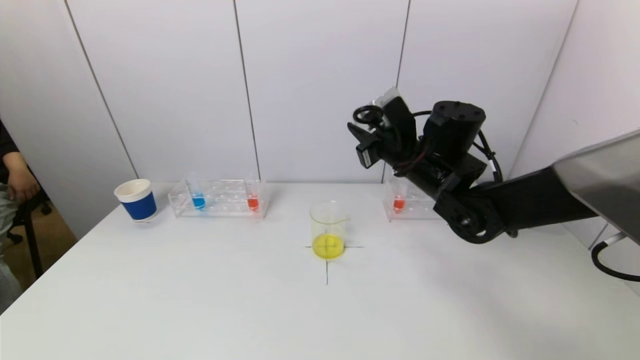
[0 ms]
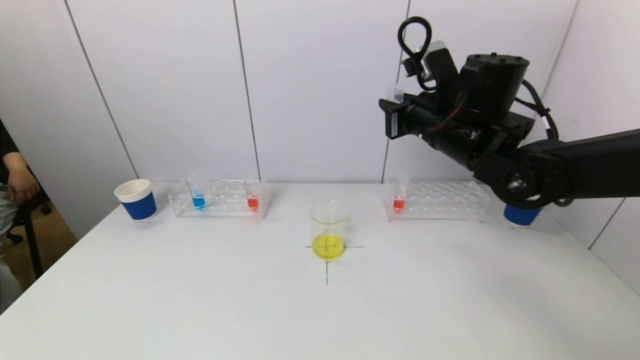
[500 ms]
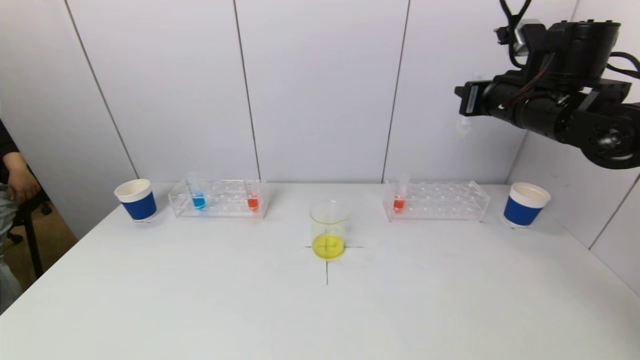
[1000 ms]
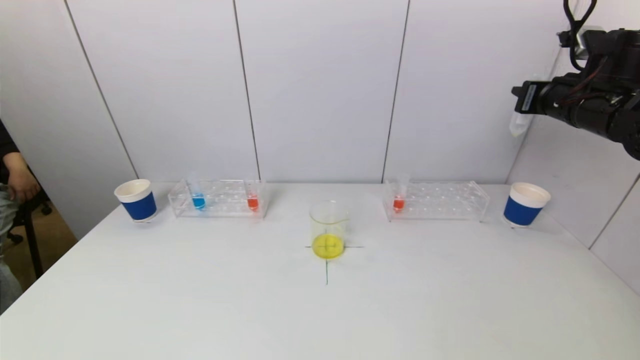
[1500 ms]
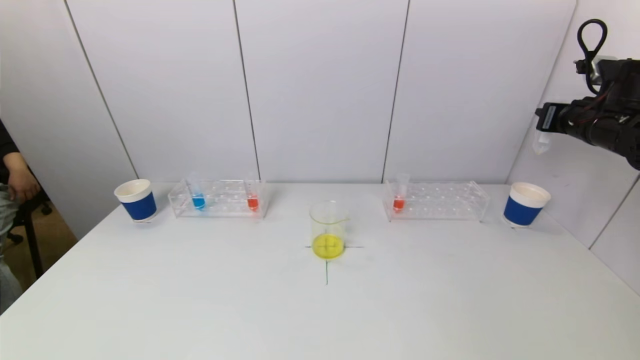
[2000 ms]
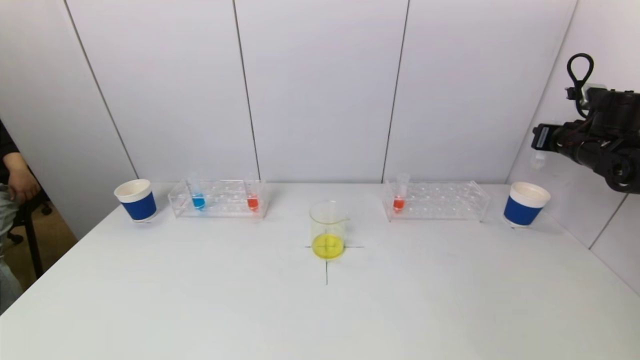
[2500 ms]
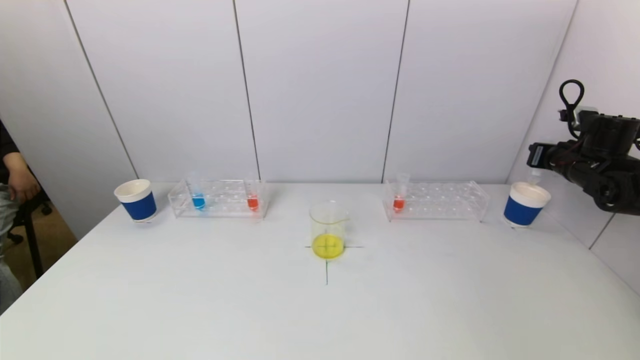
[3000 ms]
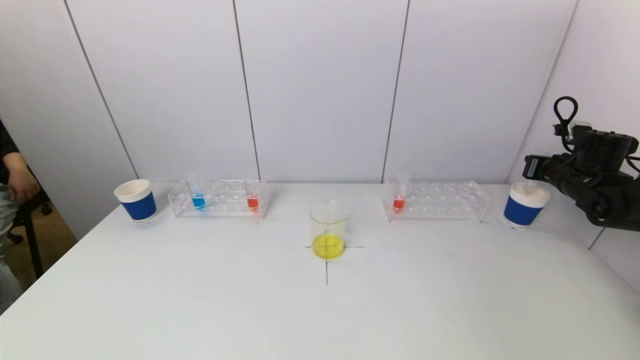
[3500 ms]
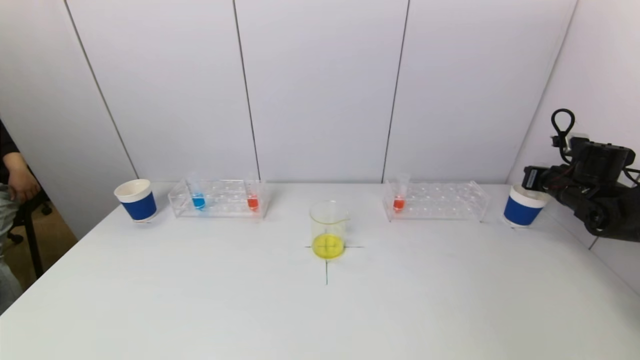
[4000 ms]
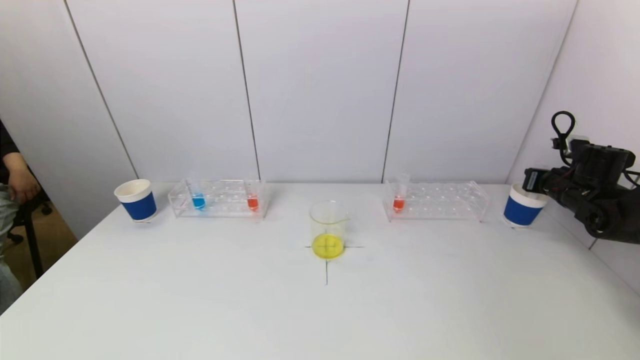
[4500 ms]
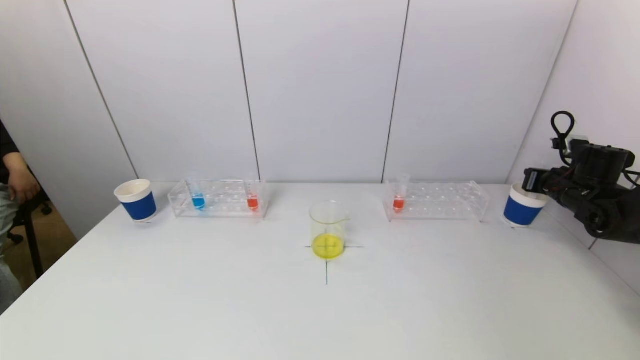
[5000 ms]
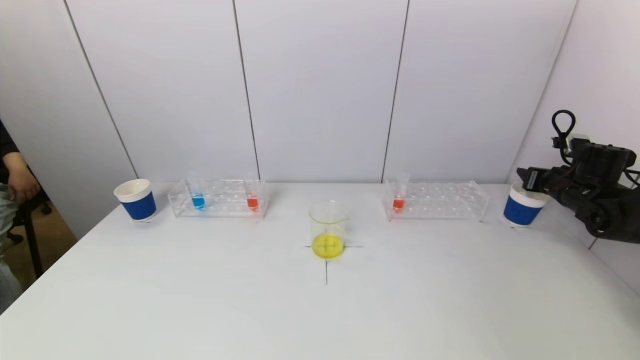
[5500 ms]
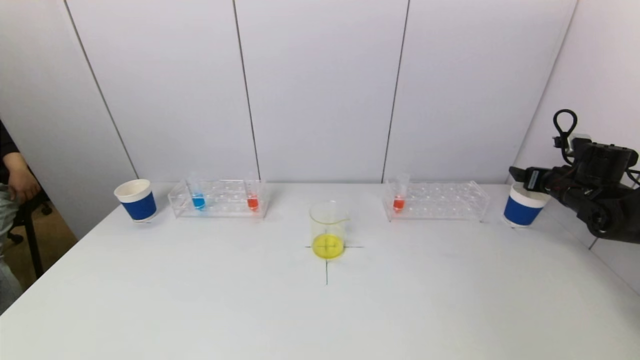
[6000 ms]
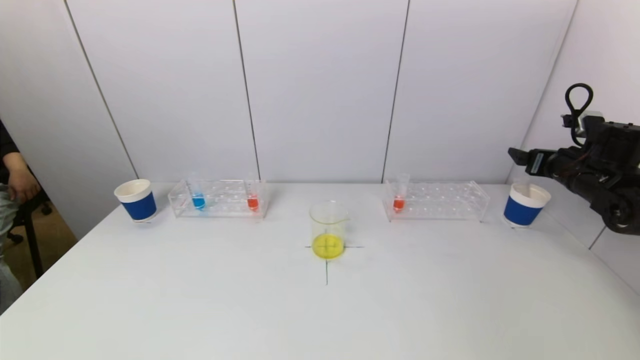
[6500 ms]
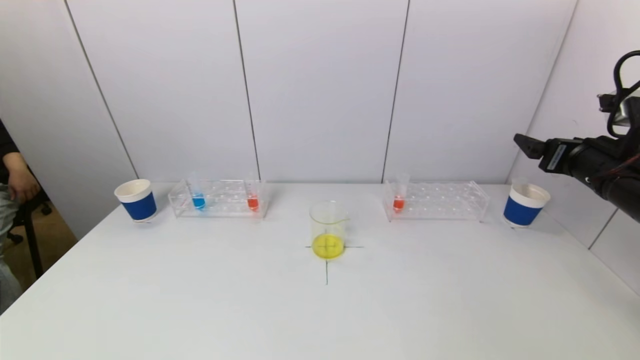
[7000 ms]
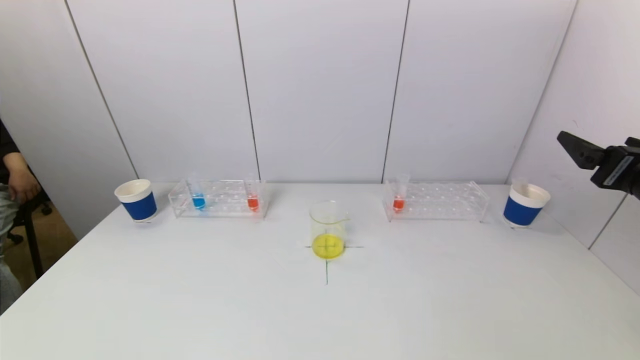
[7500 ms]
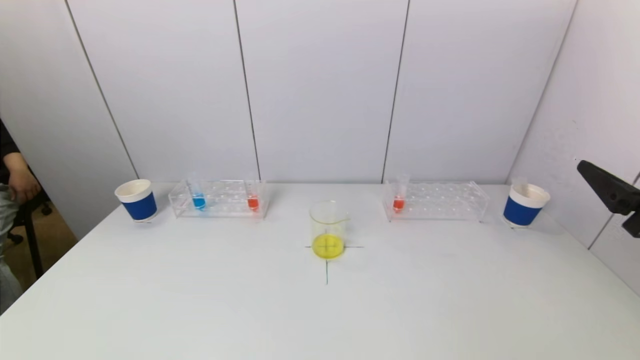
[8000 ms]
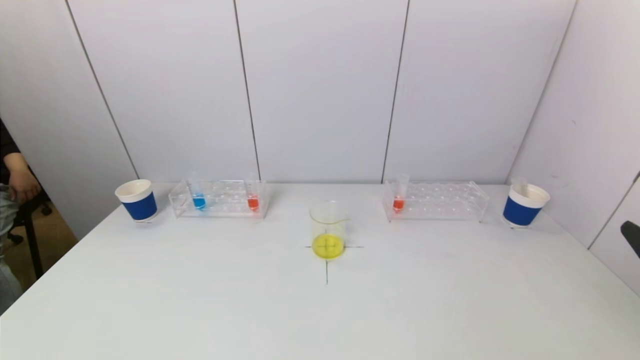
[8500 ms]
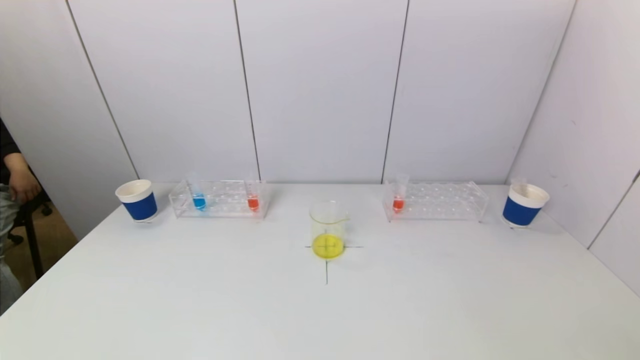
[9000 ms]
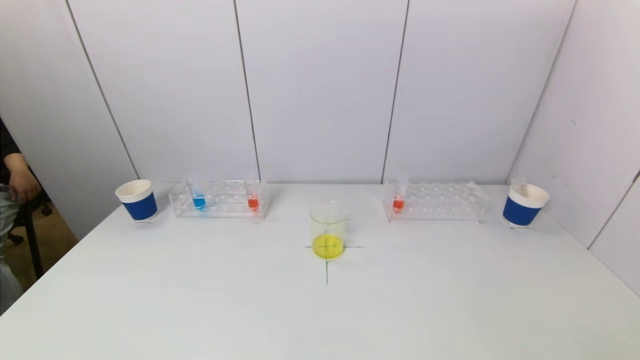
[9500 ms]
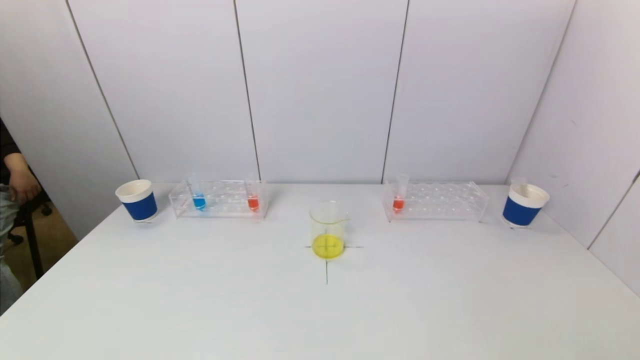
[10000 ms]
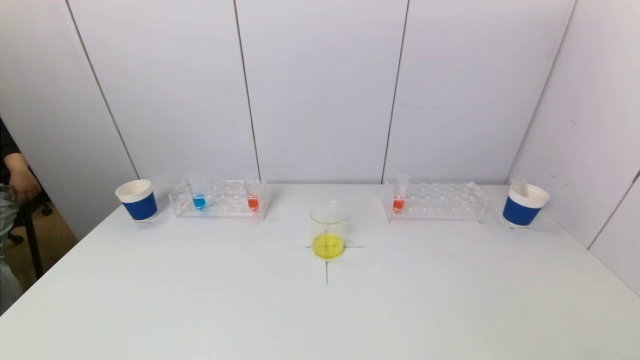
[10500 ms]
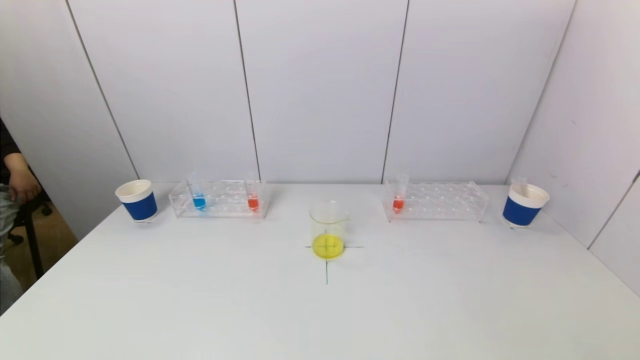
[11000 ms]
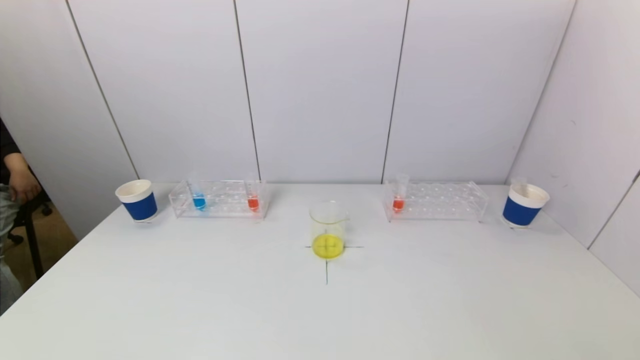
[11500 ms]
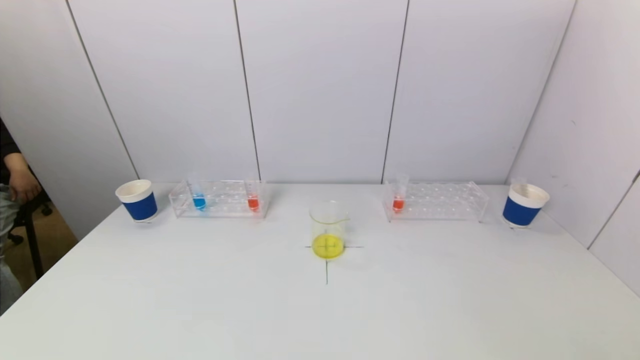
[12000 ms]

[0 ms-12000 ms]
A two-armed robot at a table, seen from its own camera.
Task of the whole recording: pick up a test tube with pigment on left test tube rack and a test tube with pigment on right test tube rack by grippers and pour them into the beaker.
Step, 0 ms to 5500 ms: Place the test tube into the paper cup with the right gripper.
0 ms to 2000 ms: The right gripper heads to the right, covering some 30 cm.
2000 ms to 4000 ms: The right gripper moves downward, about 15 cm.
4000 ms to 6000 ms: The right gripper opens its fingers.
6000 ms to 8000 ms: The right gripper goes roughly 30 cm backward and to the left.
8000 ms to 10000 ms: The right gripper travels backward and downward by some 20 cm.

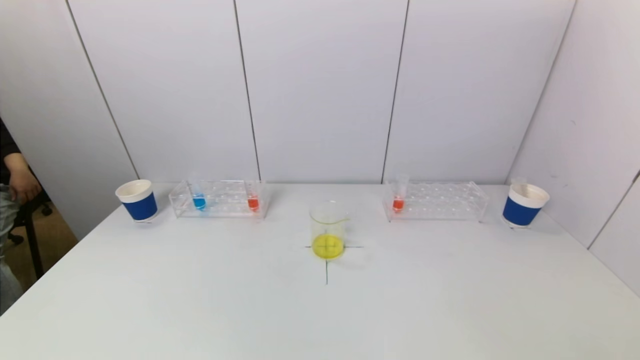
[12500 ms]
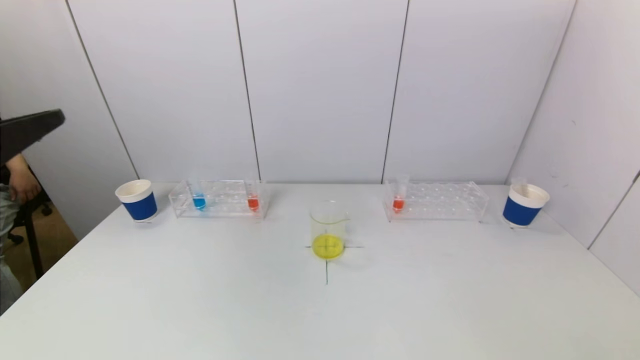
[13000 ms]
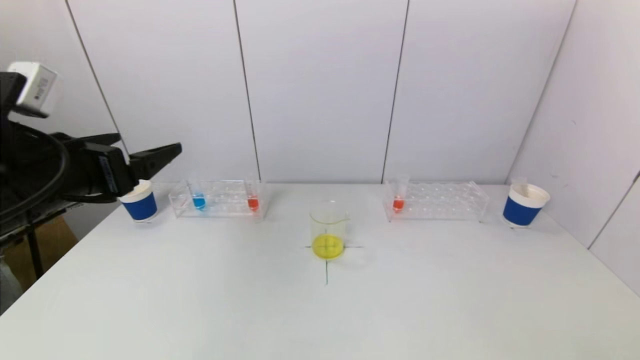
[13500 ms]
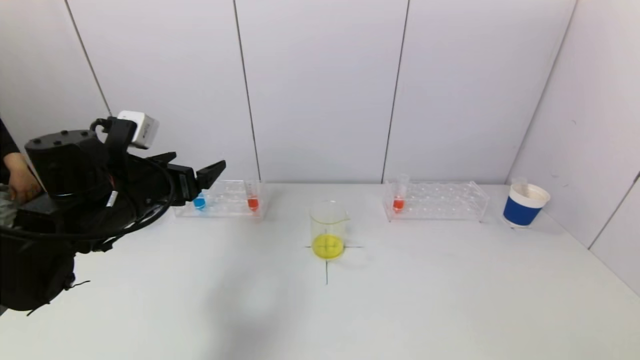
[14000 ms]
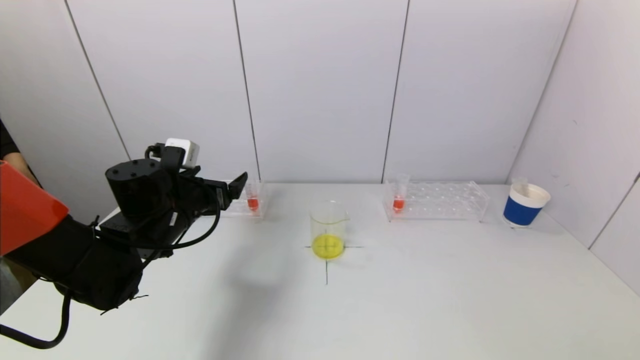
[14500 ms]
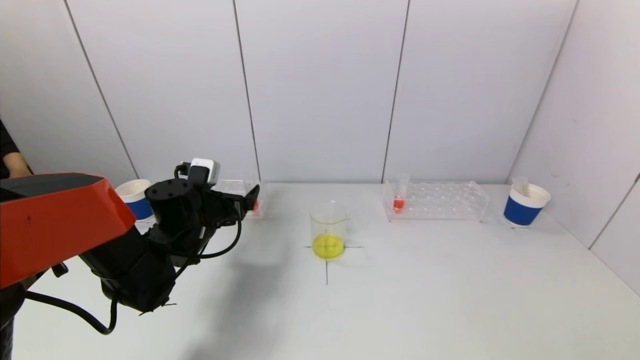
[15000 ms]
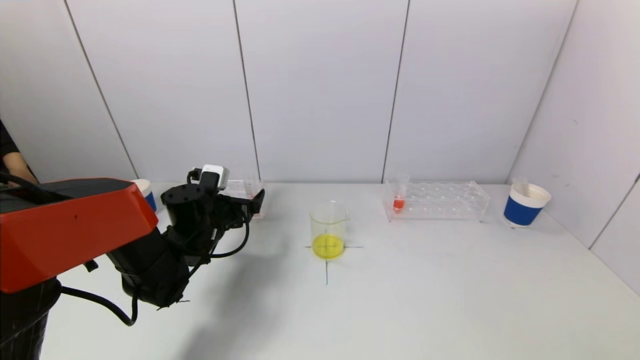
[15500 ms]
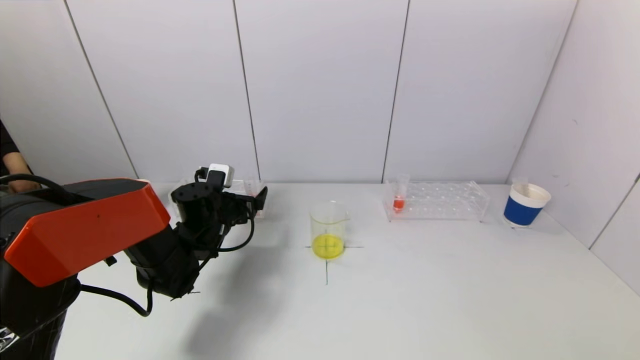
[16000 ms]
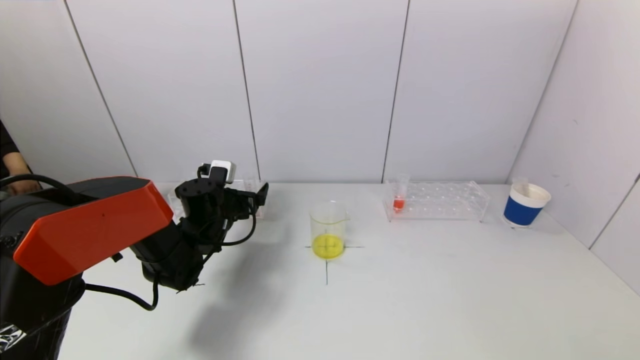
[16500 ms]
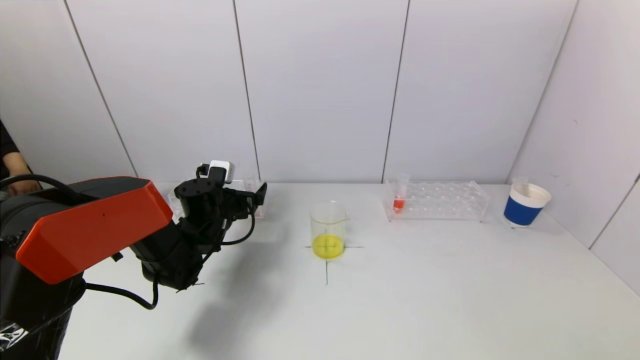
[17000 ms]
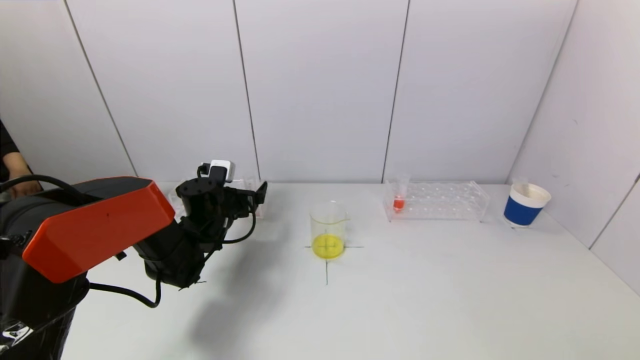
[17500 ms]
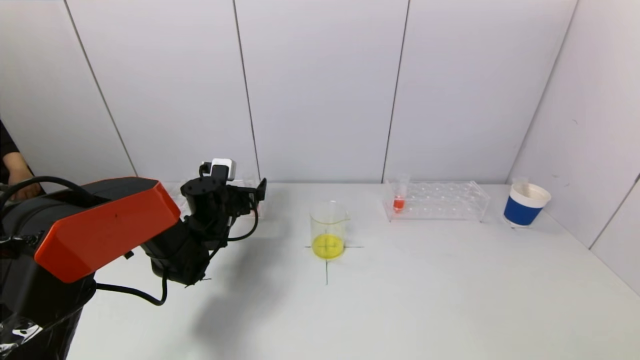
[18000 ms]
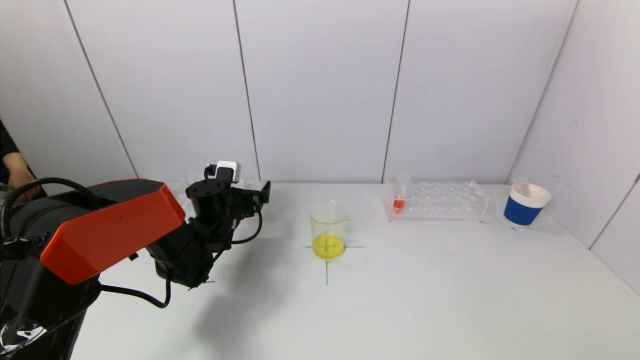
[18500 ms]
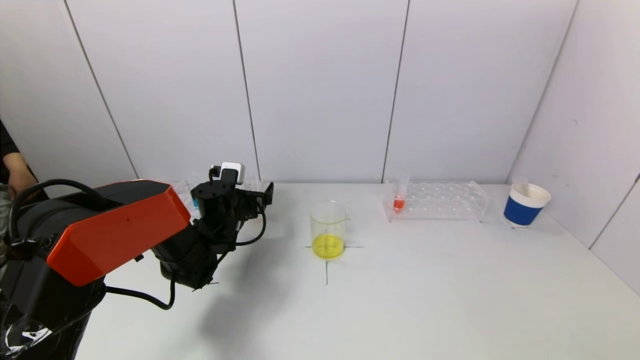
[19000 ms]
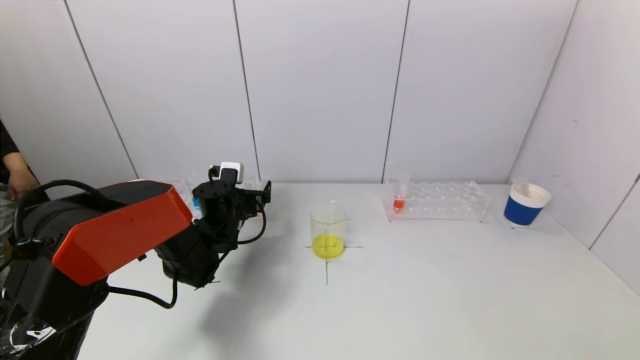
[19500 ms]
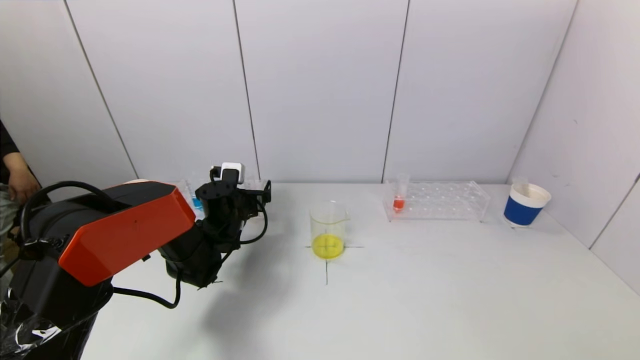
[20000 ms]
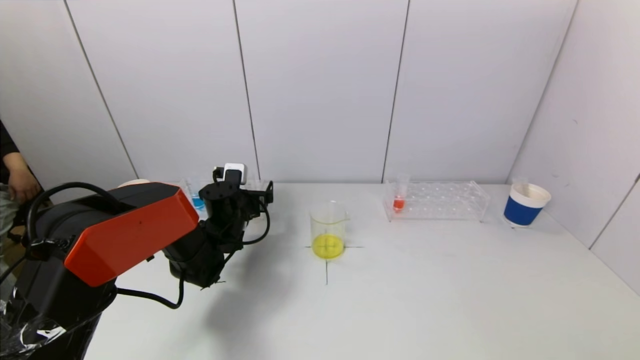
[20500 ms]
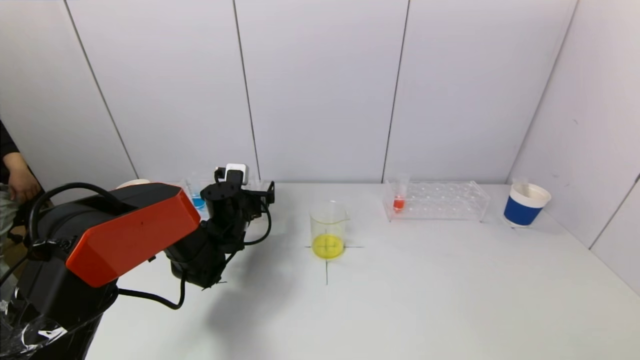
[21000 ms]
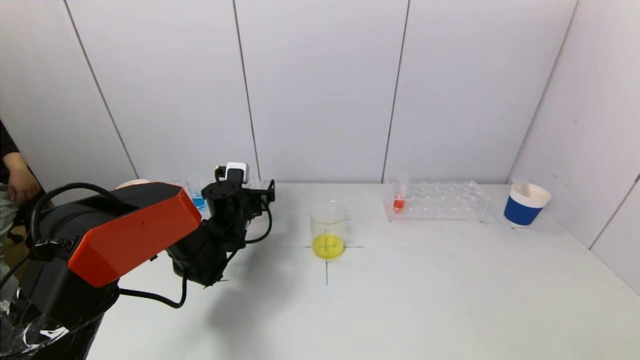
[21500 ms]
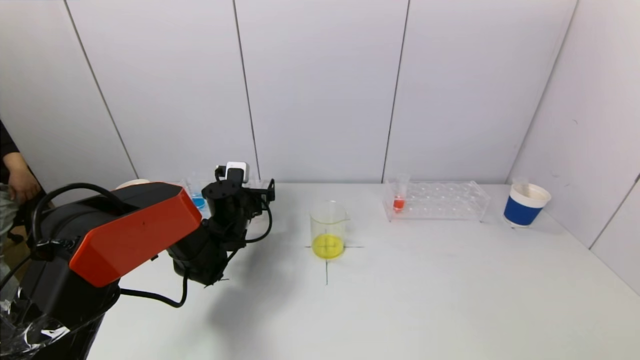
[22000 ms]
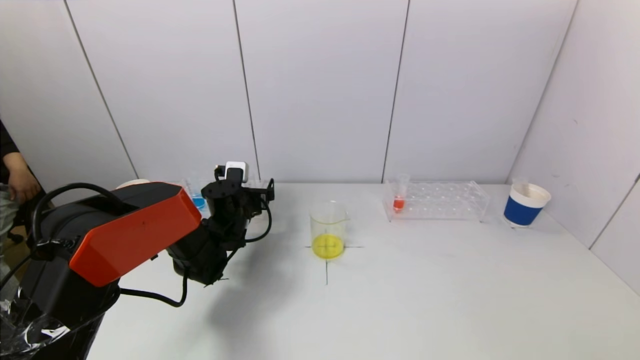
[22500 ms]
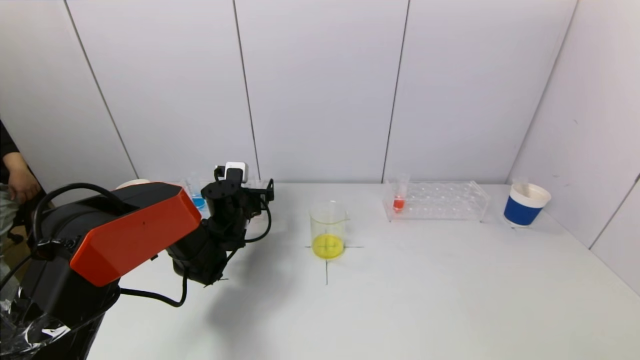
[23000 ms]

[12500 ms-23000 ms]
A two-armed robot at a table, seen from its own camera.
Task of the whole recording: pick up a test tube with pigment on left test tube rack and a test tube with pigment on right test tube rack by grippers and pour them into the beaker.
12500 ms to 14500 ms: The left gripper travels forward and downward by roughly 35 cm.
14500 ms to 16500 ms: The left gripper heads forward and downward, covering approximately 10 cm.
16500 ms to 19000 ms: There are only small adjustments of the grippers.
19000 ms to 21000 ms: The two grippers keep their place.
21000 ms to 23000 ms: Neither gripper changes place.
